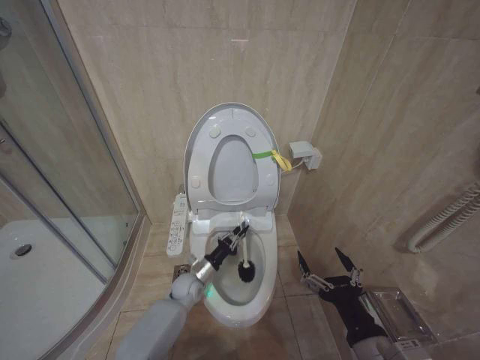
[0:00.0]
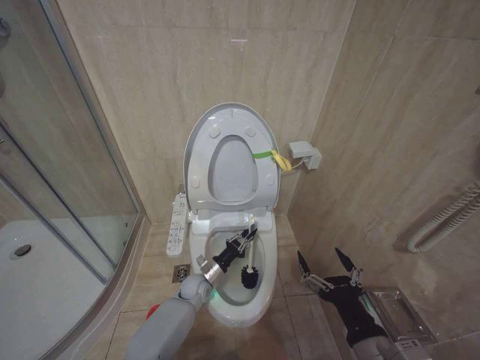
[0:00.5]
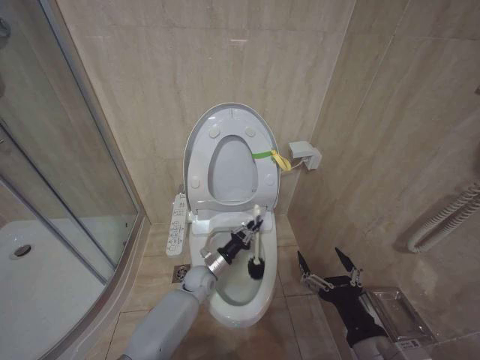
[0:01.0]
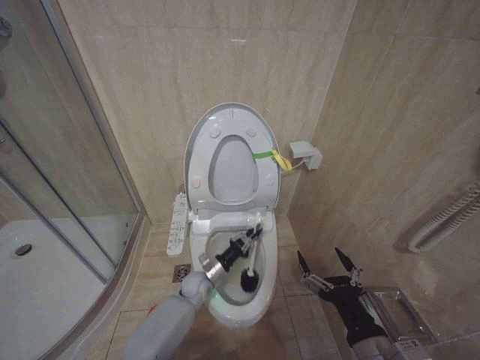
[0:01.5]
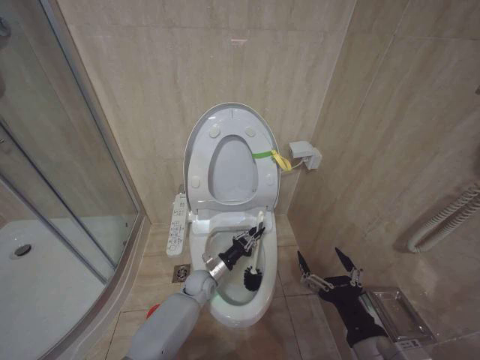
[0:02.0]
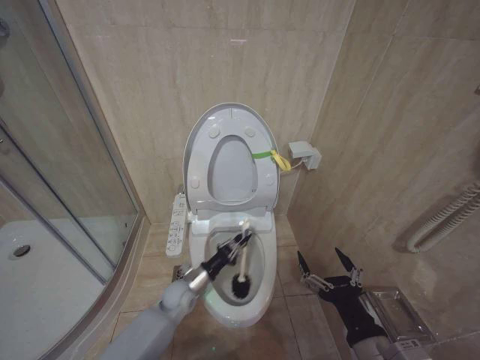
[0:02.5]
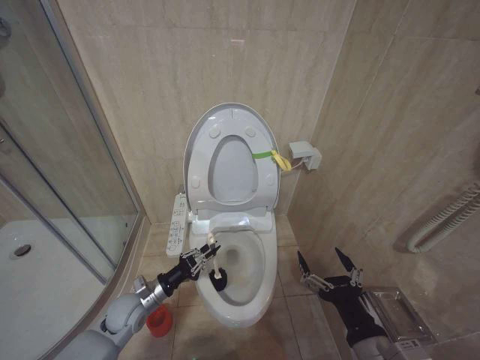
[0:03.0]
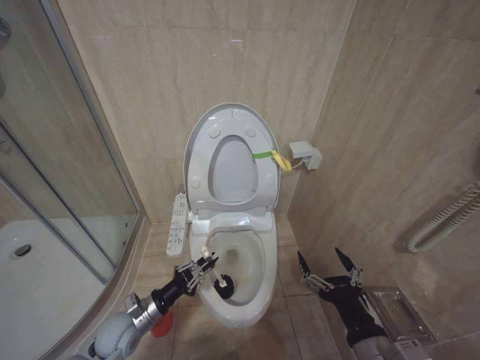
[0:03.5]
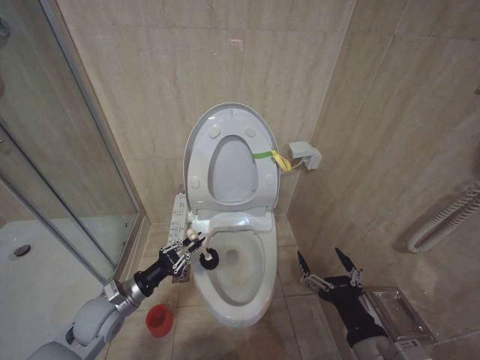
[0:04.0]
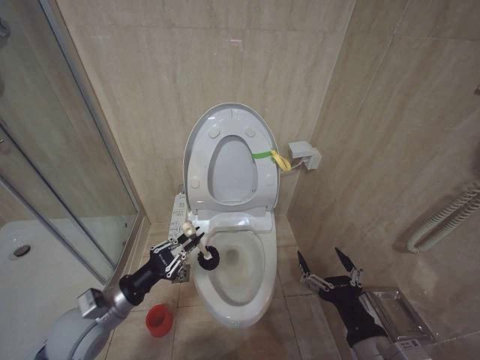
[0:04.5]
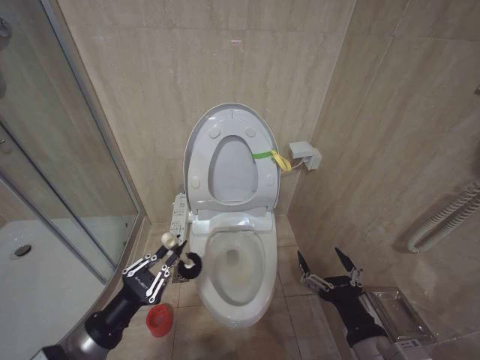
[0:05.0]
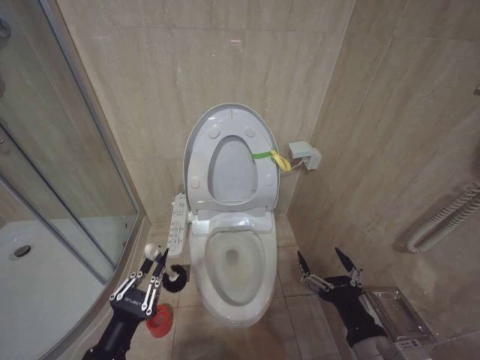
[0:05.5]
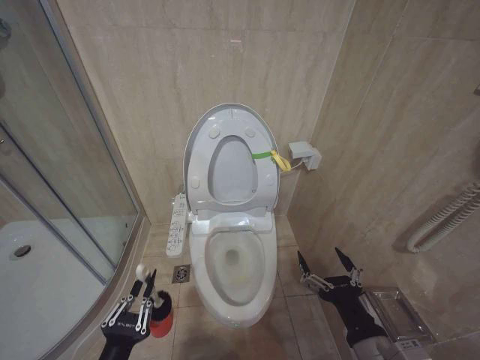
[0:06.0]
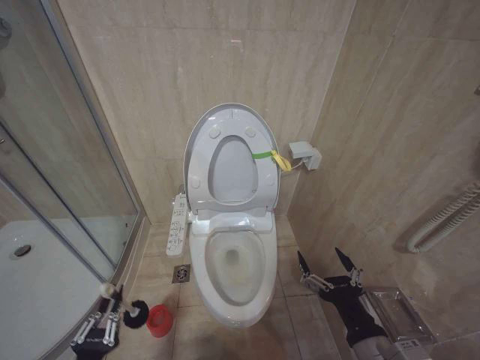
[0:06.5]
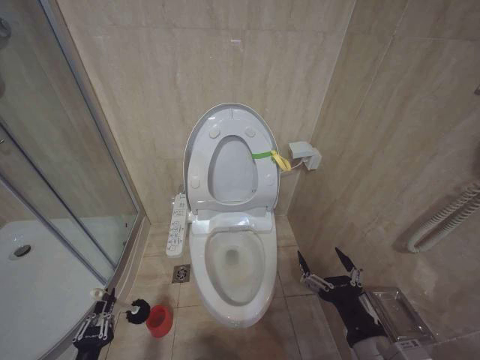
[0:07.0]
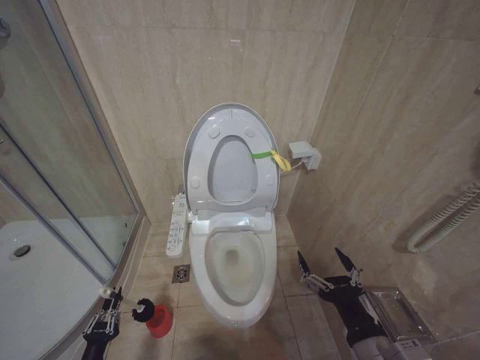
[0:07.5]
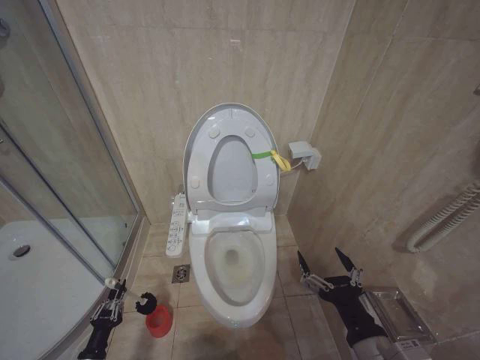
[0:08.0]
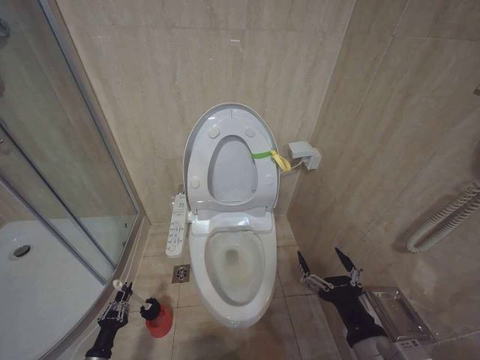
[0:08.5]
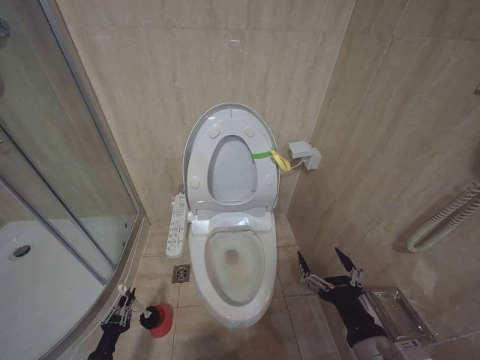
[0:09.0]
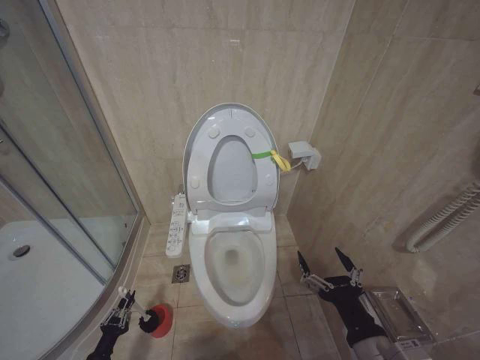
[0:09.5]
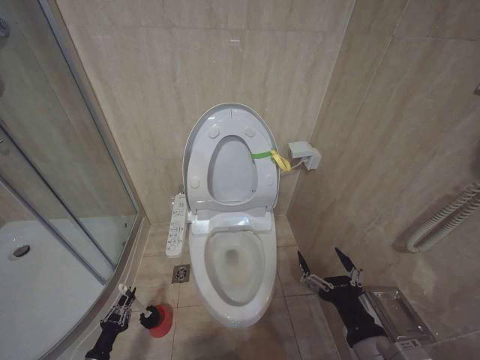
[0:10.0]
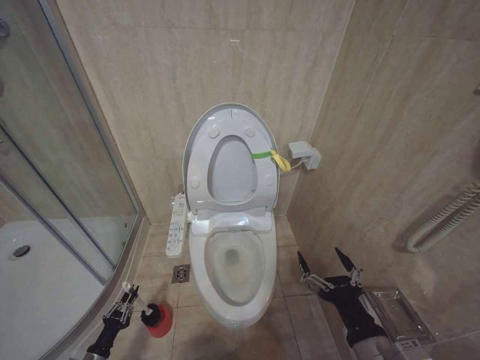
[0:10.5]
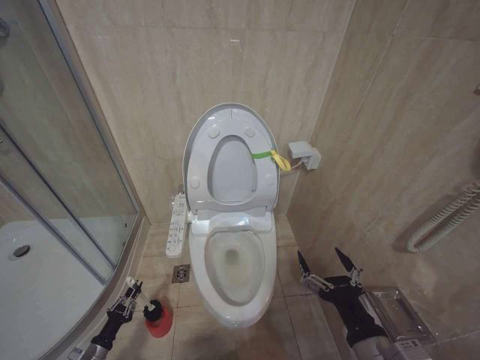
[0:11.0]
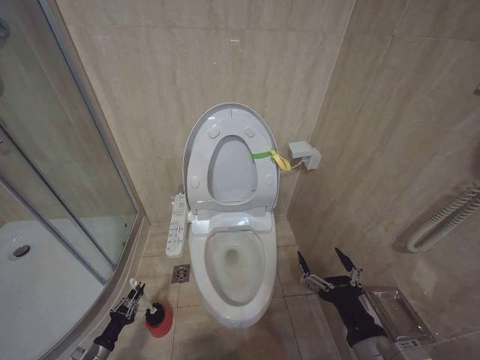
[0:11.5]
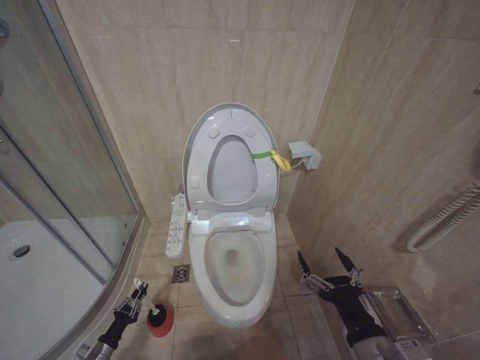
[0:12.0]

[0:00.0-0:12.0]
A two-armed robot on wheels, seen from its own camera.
Task of the whole recording: Open the toilet lid, clean the toilet bowl with a toilet brush, close the toilet lid, and flush.
0.0 to 2.0 s: The grippers make only small movements.
2.0 to 4.0 s: The left gripper heads to the left, backward and upward, covering about 25 cm.
4.0 to 6.0 s: The left gripper is displaced backward by some 25 cm.
6.0 to 8.0 s: The left gripper travels downward and to the left by approximately 30 cm.
8.0 to 10.0 s: The left gripper moves some 5 cm.
10.0 to 12.0 s: The left gripper moves roughly 5 cm.

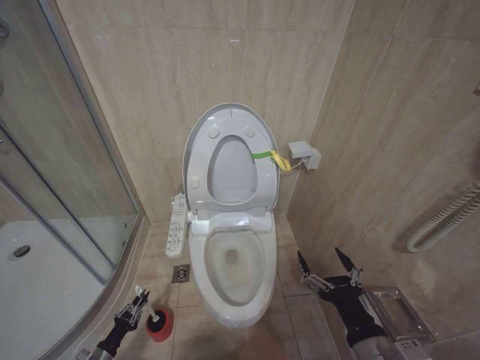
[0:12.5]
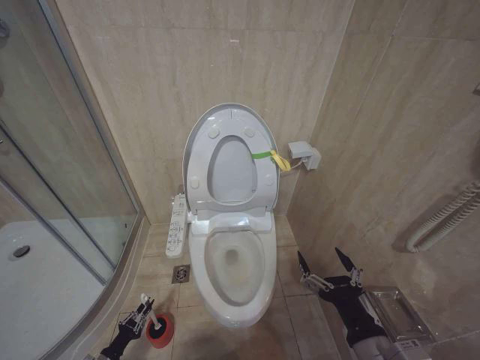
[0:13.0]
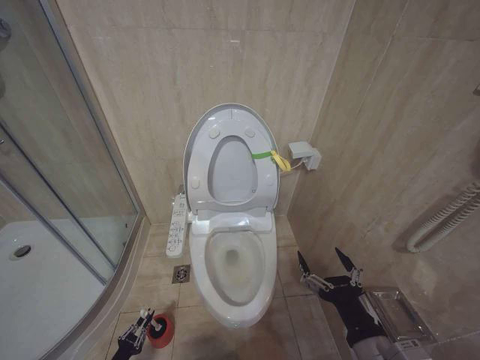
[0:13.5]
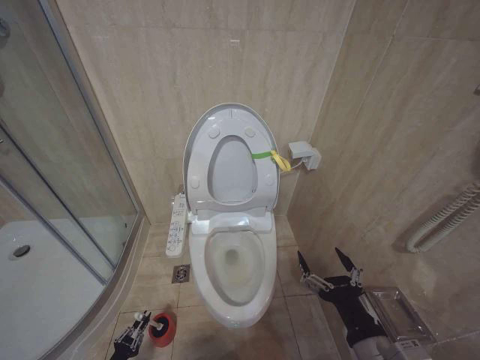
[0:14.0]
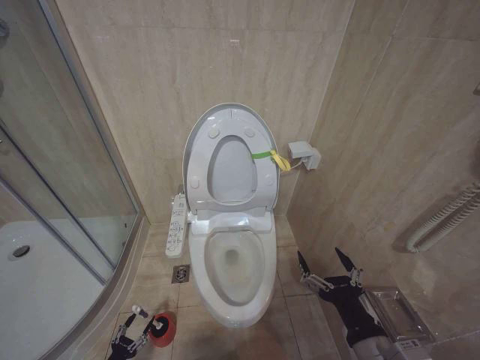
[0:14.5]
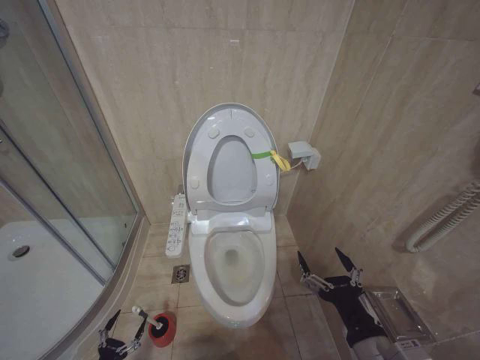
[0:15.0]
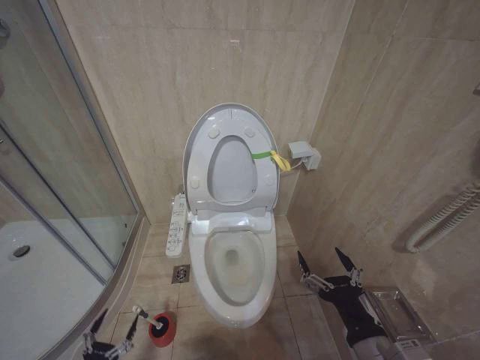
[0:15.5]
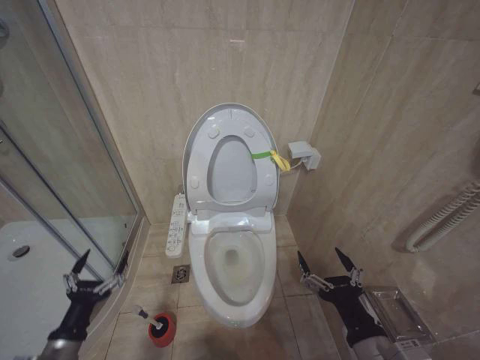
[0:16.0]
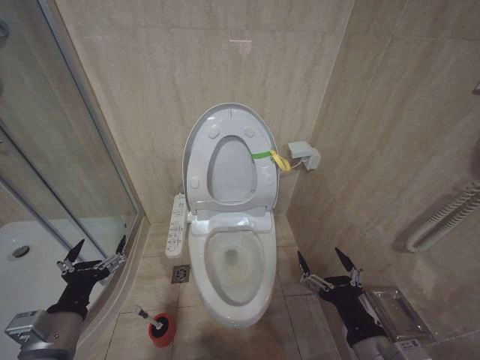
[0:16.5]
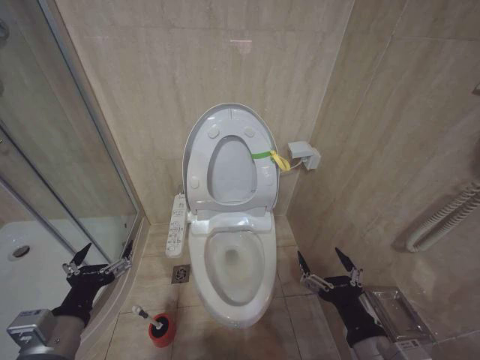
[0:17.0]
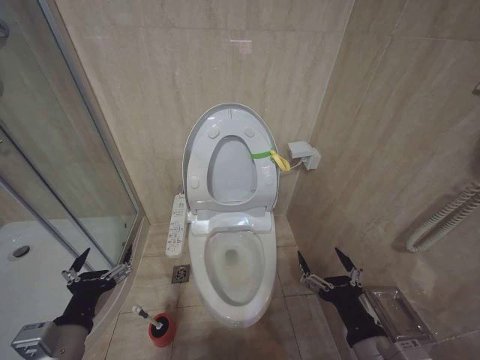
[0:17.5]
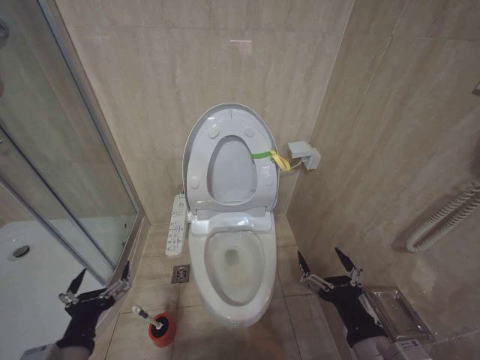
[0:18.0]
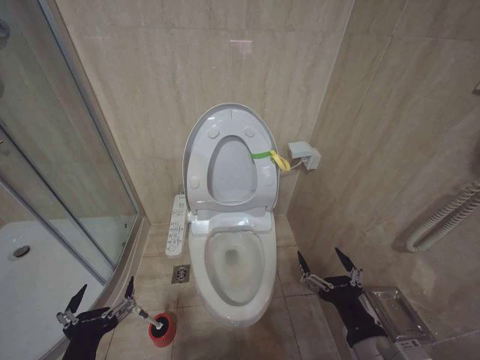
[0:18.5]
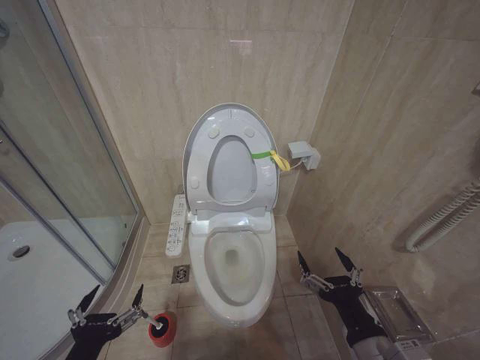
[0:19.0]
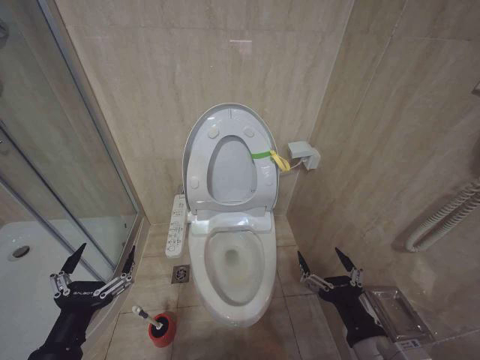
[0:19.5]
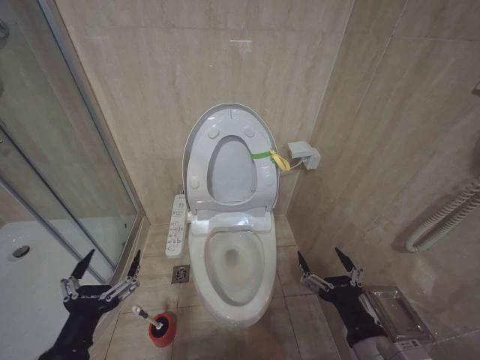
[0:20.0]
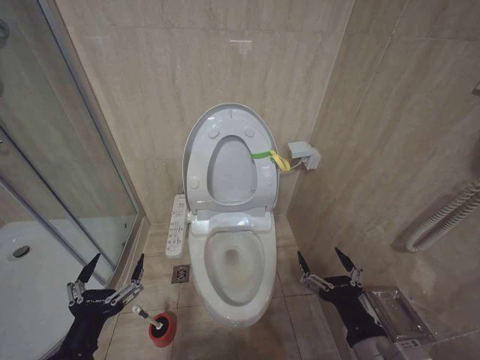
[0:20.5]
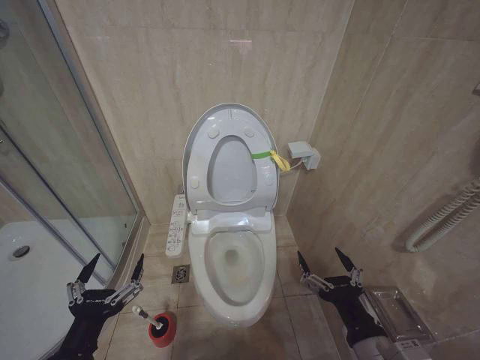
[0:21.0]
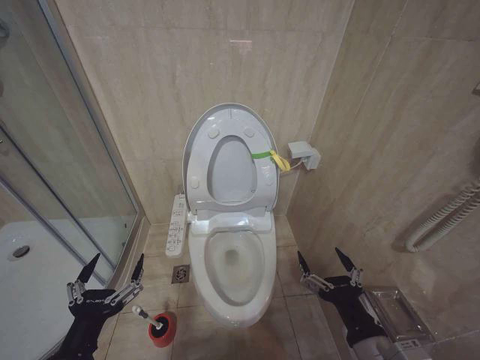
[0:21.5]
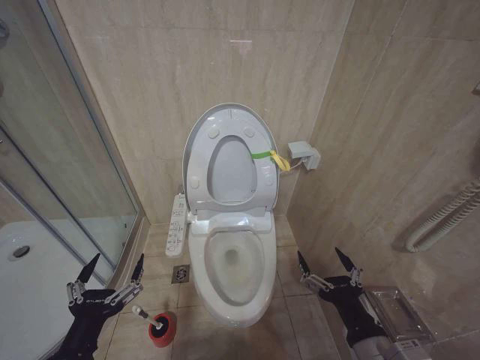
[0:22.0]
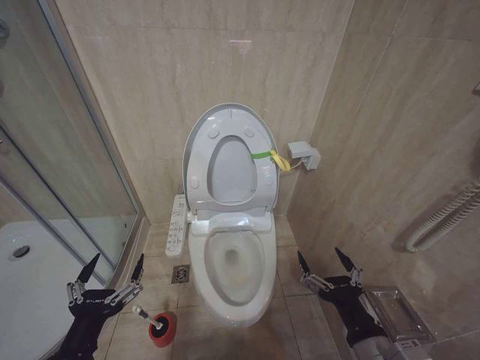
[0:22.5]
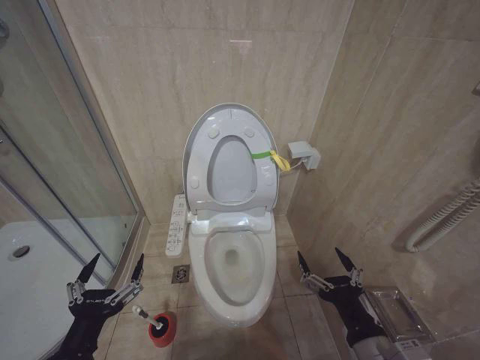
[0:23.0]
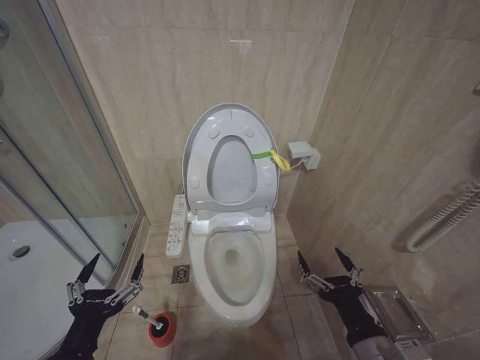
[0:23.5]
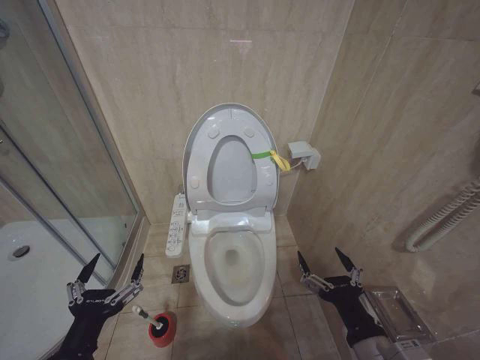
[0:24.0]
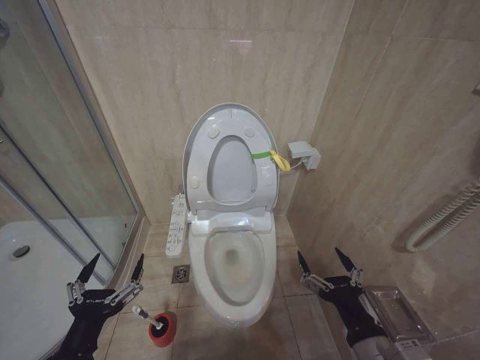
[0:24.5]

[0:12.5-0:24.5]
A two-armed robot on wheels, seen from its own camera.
Task of the whole recording: Open the toilet lid, clean the toilet bowl with a toilet brush, close the toilet lid, and flush.
12.5 to 14.5 s: The left gripper travels backward by approximately 5 cm.
14.5 to 16.5 s: The left gripper heads upward, covering some 40 cm, and opens.
16.5 to 18.5 s: The left gripper moves backward and to the right, some 10 cm.
20.5 to 24.5 s: Both grippers stay about where they are.

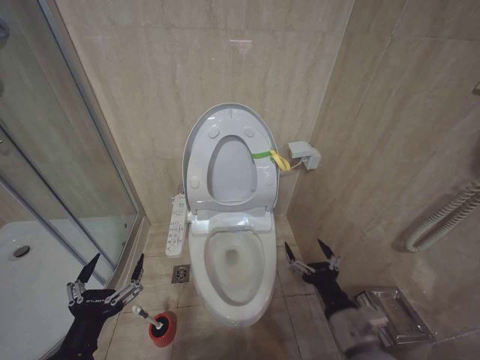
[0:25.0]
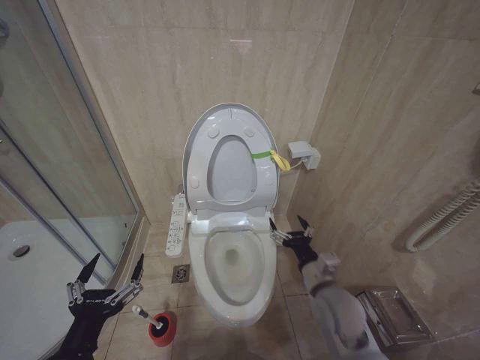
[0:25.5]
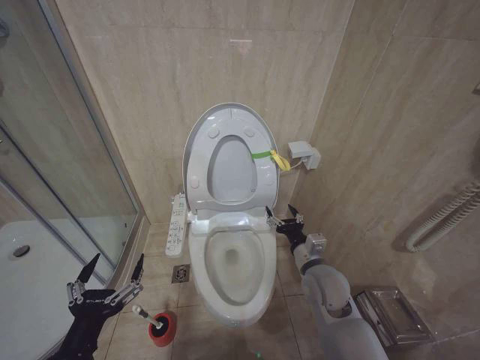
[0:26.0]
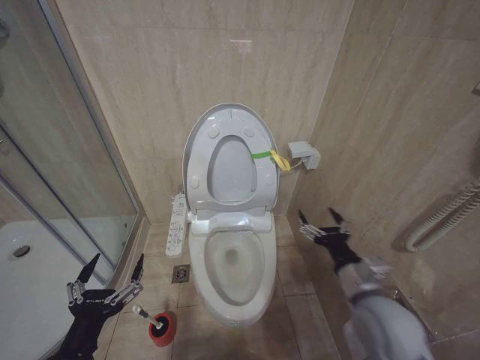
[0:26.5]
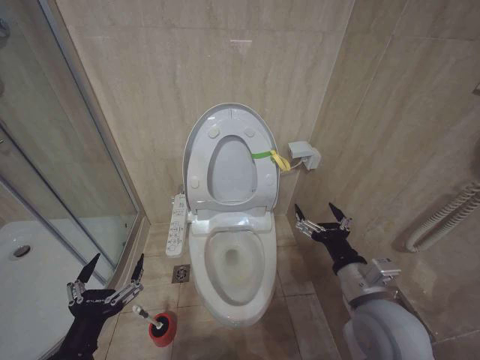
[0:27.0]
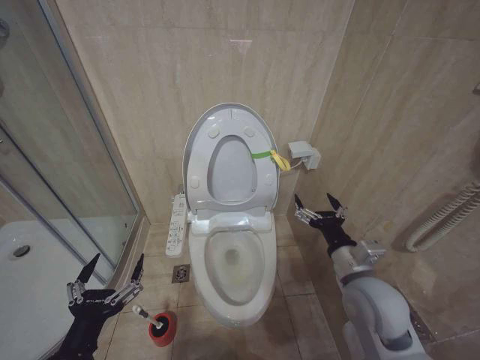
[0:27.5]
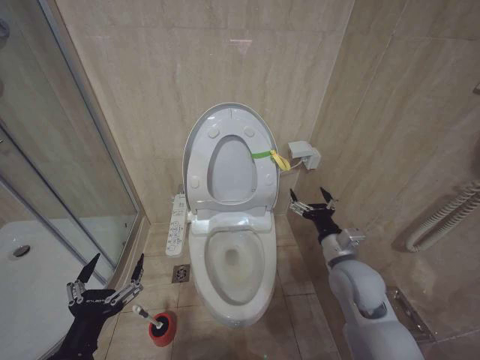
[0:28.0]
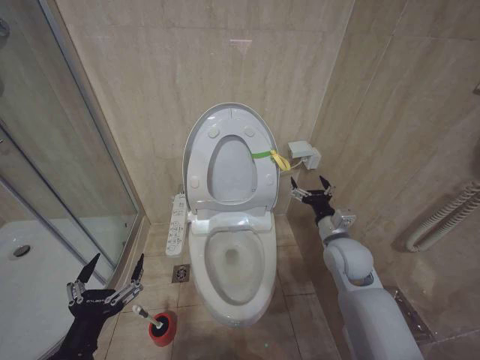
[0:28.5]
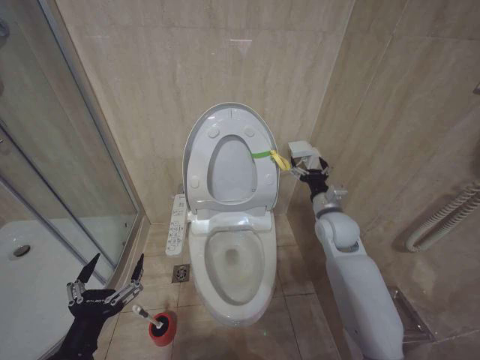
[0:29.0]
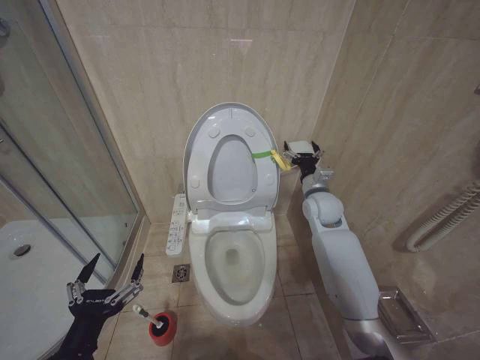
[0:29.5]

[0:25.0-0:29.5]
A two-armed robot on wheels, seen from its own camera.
Task of the whole recording: Open the toilet lid, clean the toilet bowl with a toilet brush, close the toilet lid, and flush.
25.0 to 27.0 s: The right gripper travels upward by some 5 cm, and goes forward and returns, some 20 cm each way.
27.0 to 29.5 s: The right gripper moves forward, roughly 25 cm.
